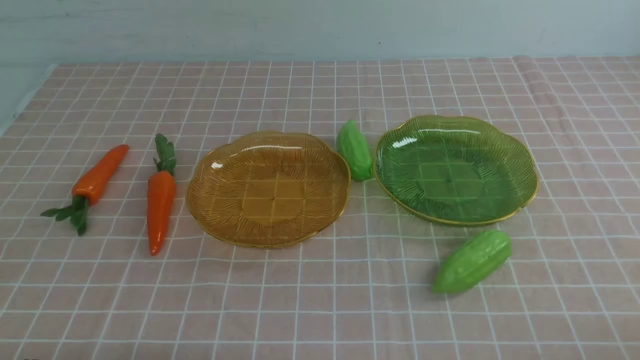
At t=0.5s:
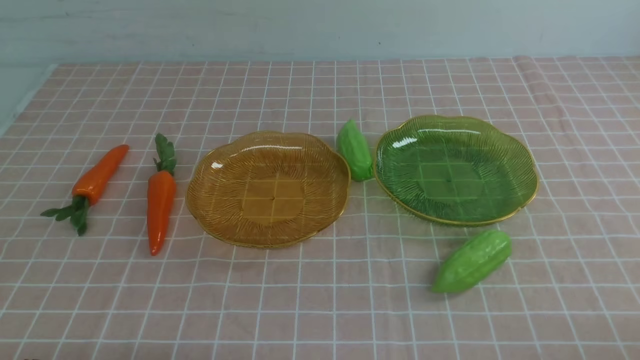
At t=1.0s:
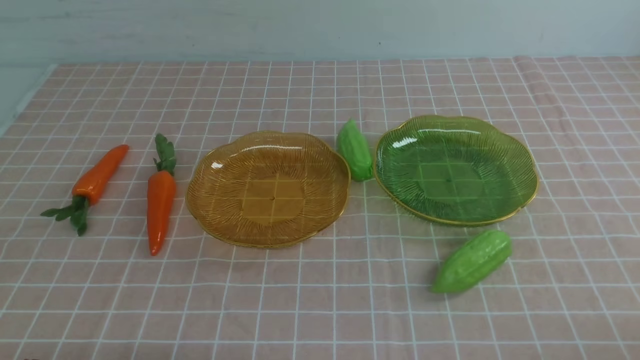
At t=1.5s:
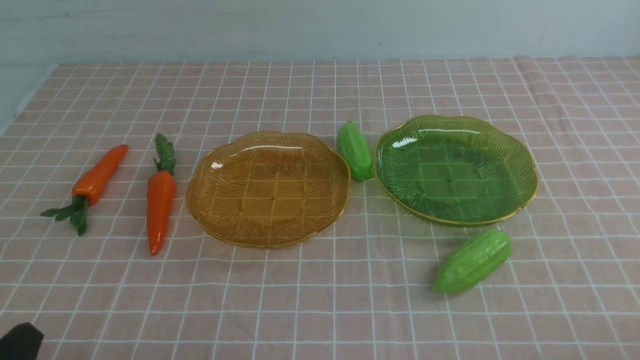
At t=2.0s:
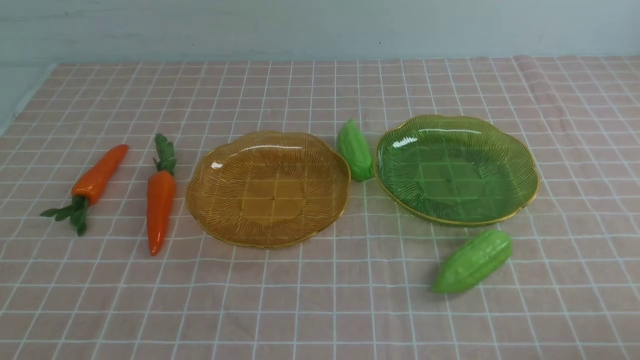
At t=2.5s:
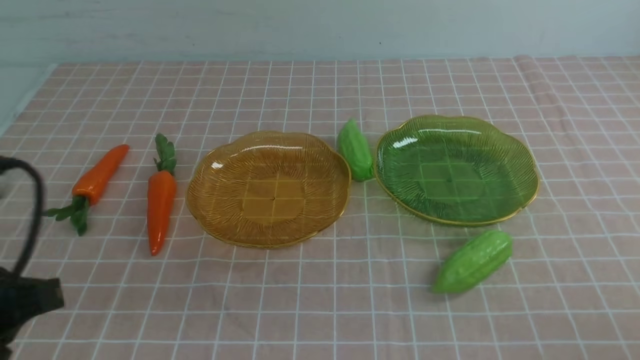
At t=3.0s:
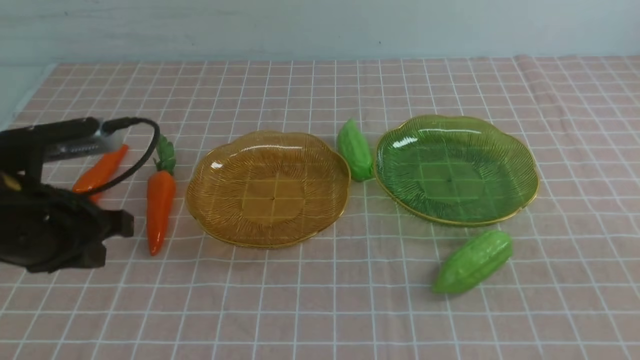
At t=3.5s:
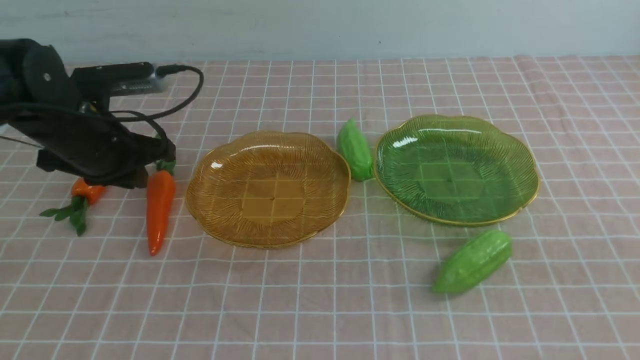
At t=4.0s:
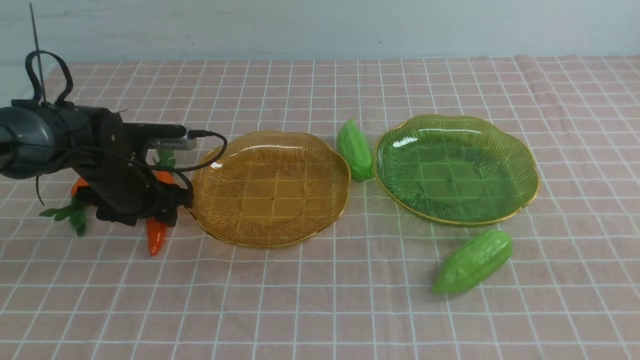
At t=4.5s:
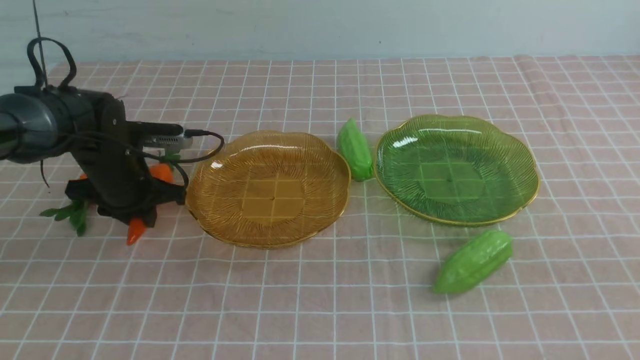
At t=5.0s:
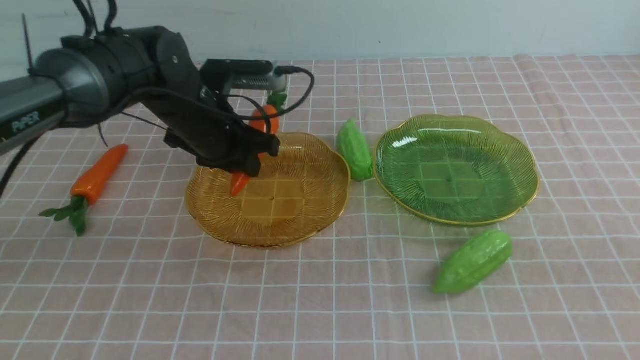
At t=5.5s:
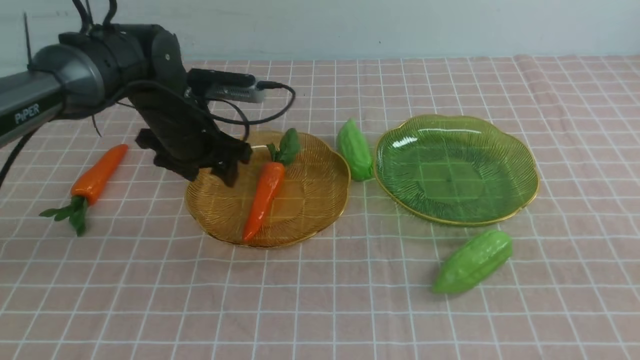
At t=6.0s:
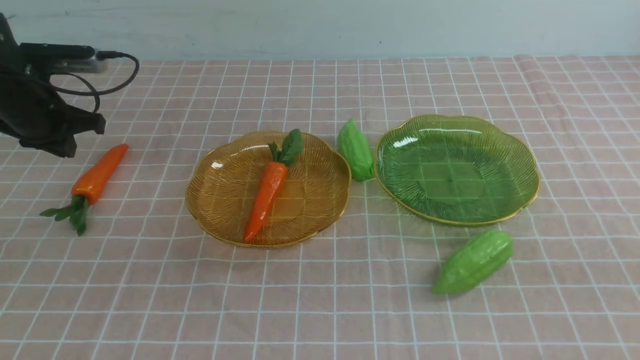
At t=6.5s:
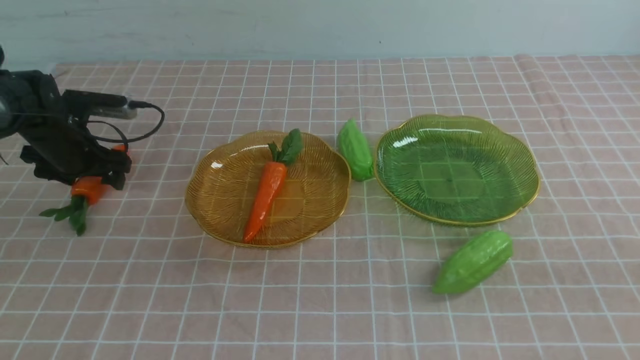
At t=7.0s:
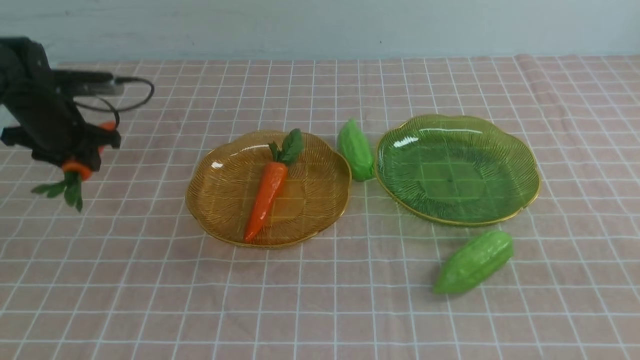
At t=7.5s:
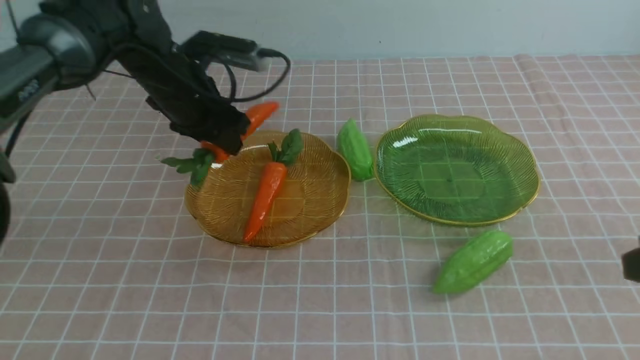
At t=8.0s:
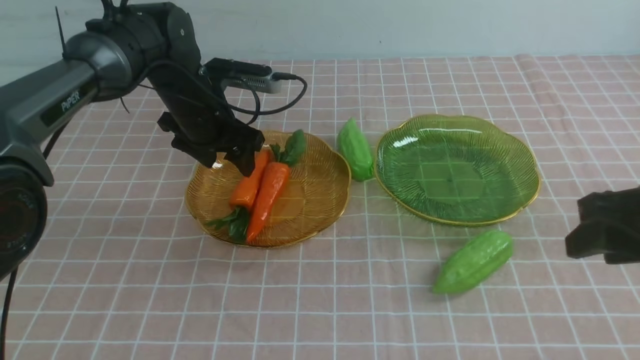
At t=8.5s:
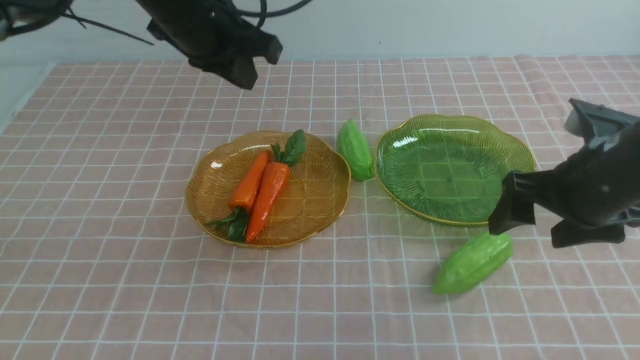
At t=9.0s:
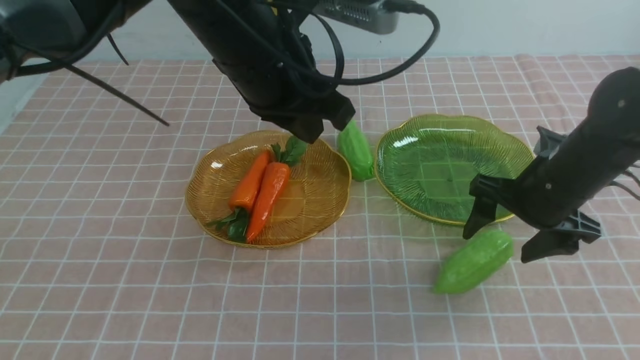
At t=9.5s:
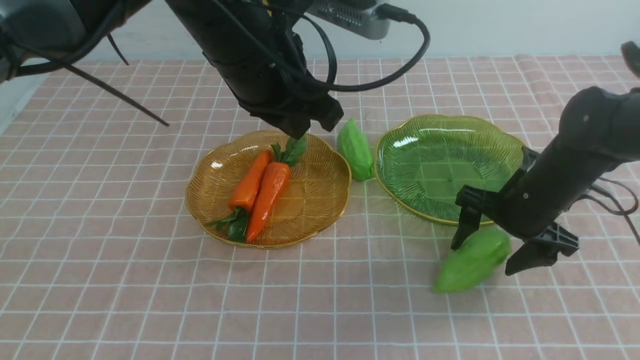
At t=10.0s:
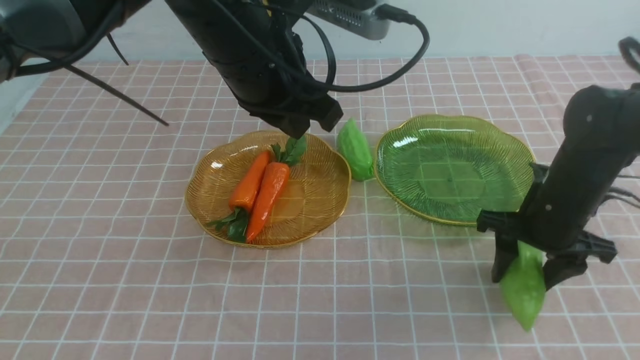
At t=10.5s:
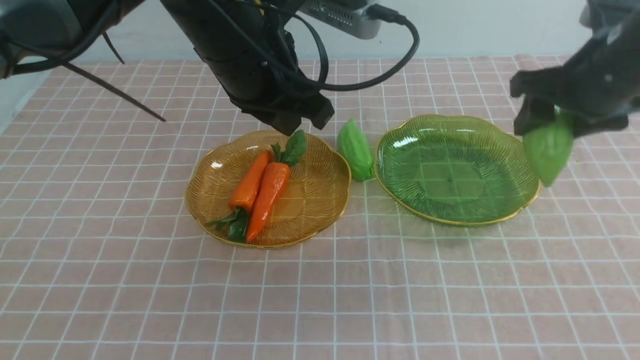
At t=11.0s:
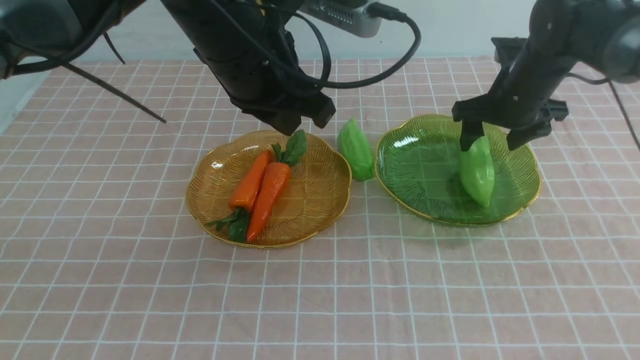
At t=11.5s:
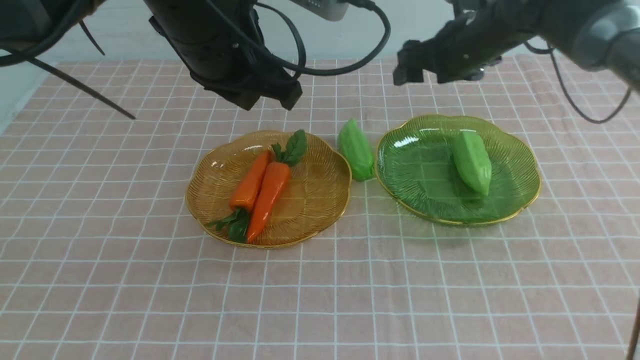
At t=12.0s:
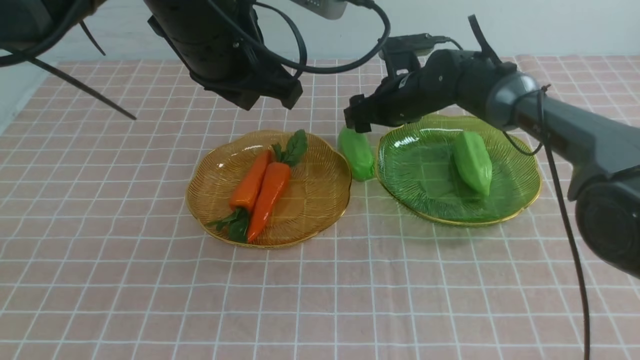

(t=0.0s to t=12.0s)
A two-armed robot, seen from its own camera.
Step, t=0.0s - t=5.0s: use the left arm to grab a carrot and put it into the left plate.
Step, t=5.5s - t=7.5s: use the left arm to grab a carrot and put it into the left plate.
Step, t=8.0s - t=11.0s: use the right arm to grab a chayote and put it into the right plate.
t=2.0s - t=4.0s: The right gripper is displaced upward and forward by roughly 15 cm. Meanwhile the left gripper shifts approximately 35 cm forward, and opens.
t=4.0s - t=6.0s: The left gripper moves to the left, upward and forward, approximately 15 cm, and closes, then opens again.
t=6.0s - t=8.0s: The right gripper moves forward and downward, about 10 cm, and opens. The left gripper shifts some 20 cm to the right, and opens its fingers.
t=8.0s - t=10.0s: The left gripper shifts about 20 cm upward, backward and to the right, and closes; the right gripper moves forward and downward, some 15 cm, and opens, then closes again.
t=10.0s - t=12.0s: The right gripper goes about 20 cm forward and to the left.

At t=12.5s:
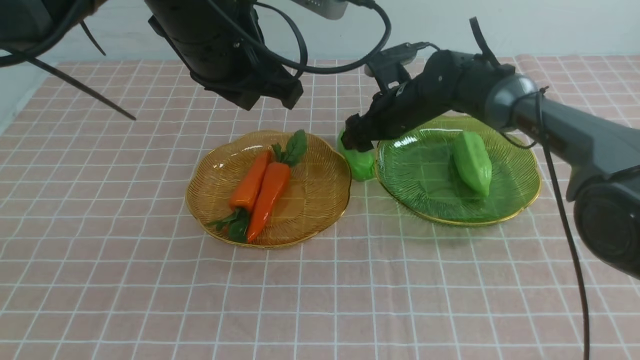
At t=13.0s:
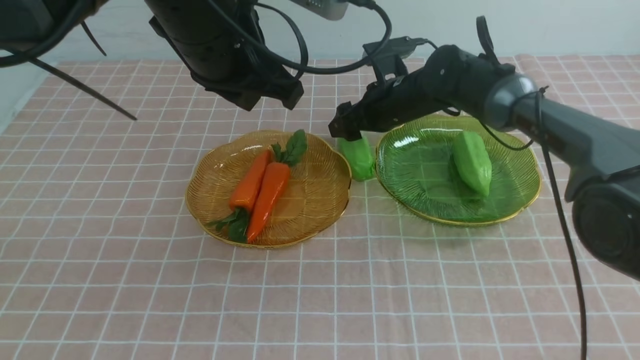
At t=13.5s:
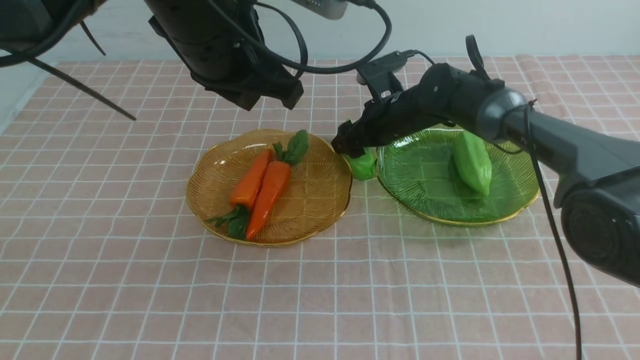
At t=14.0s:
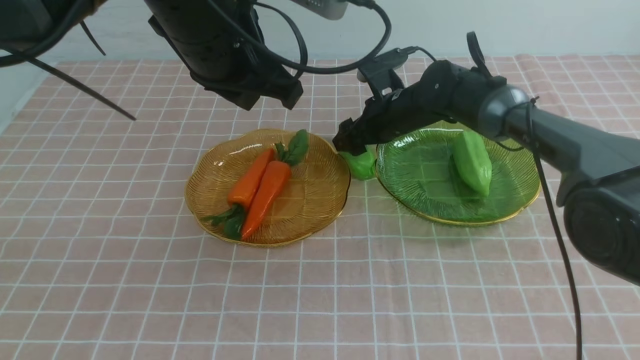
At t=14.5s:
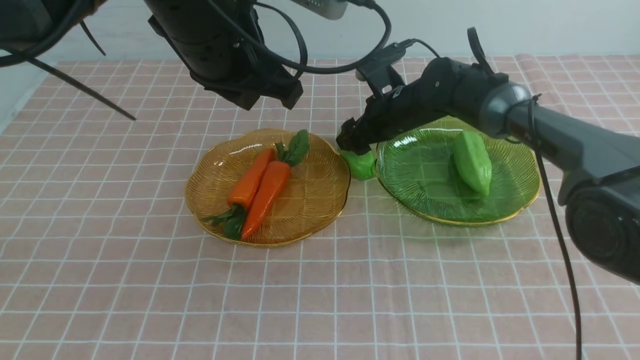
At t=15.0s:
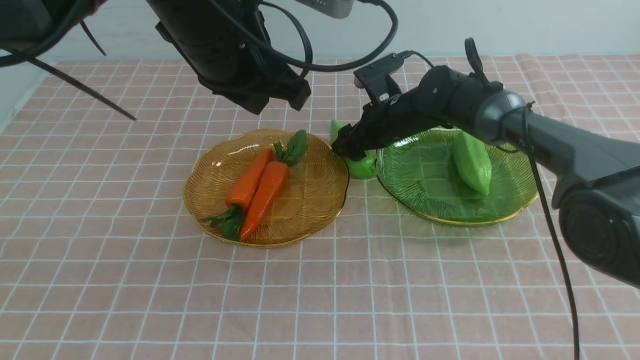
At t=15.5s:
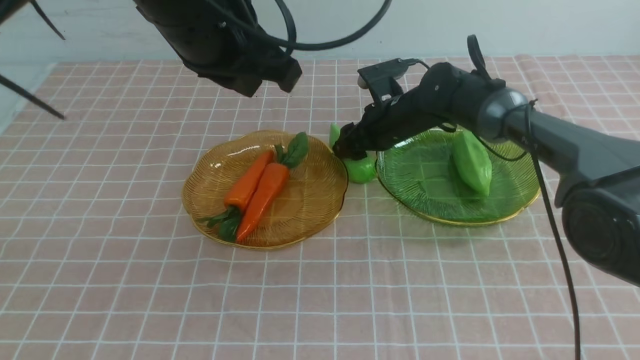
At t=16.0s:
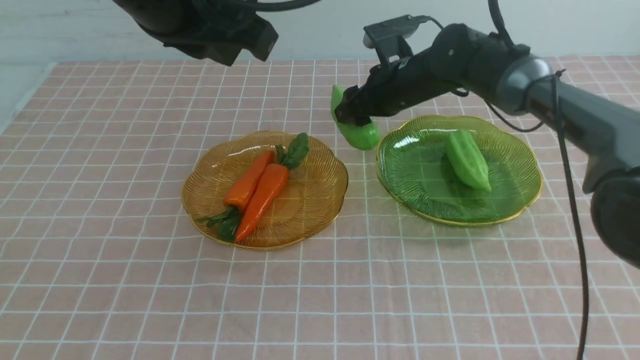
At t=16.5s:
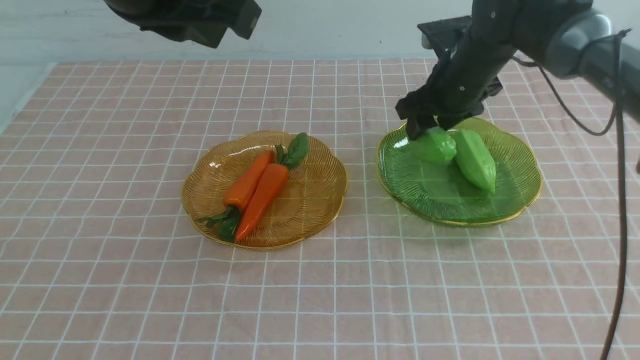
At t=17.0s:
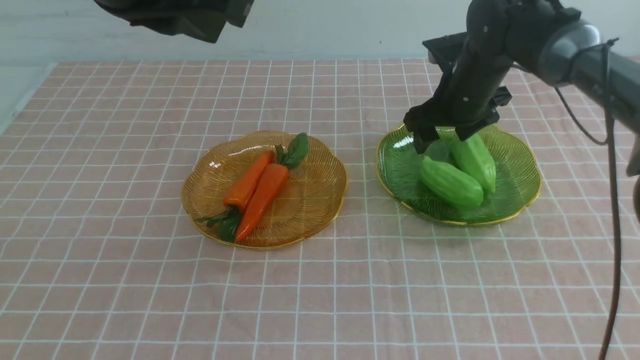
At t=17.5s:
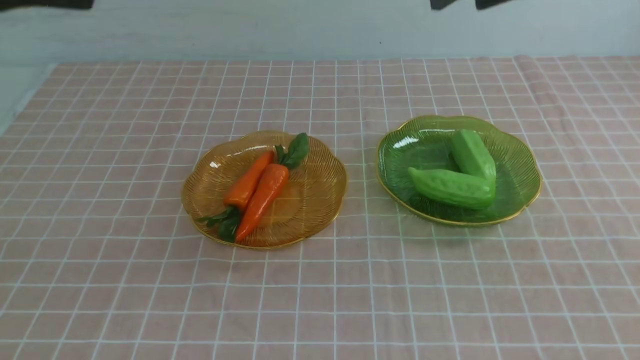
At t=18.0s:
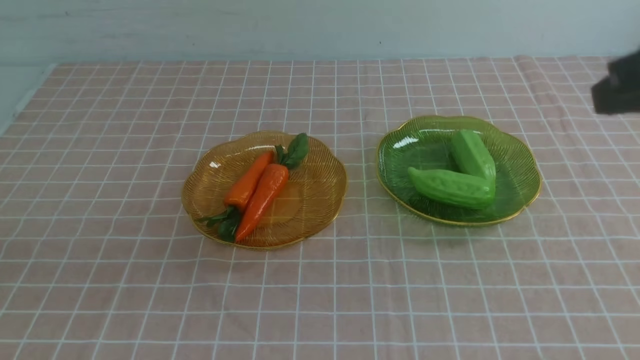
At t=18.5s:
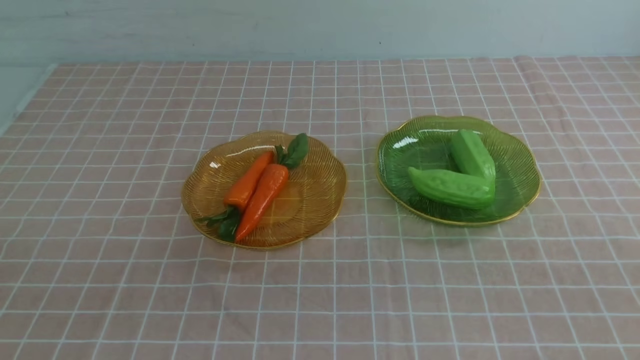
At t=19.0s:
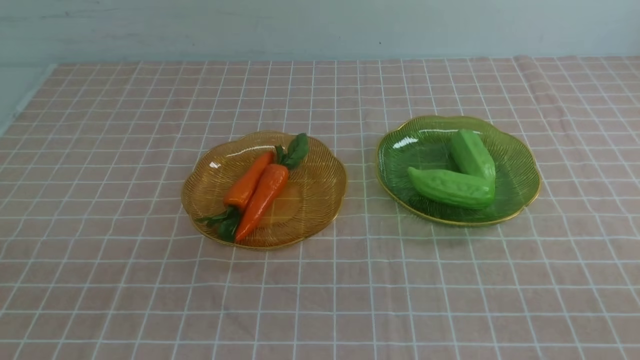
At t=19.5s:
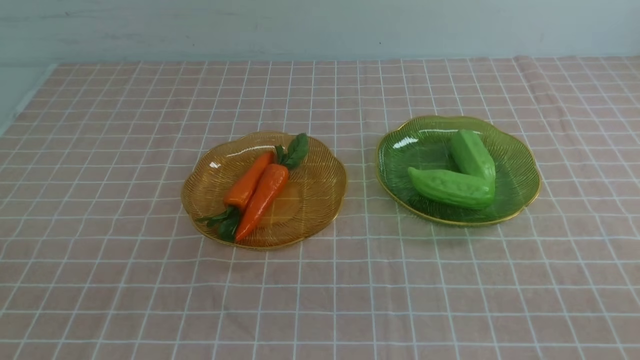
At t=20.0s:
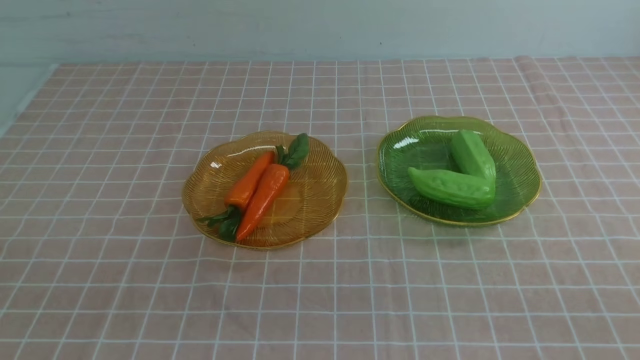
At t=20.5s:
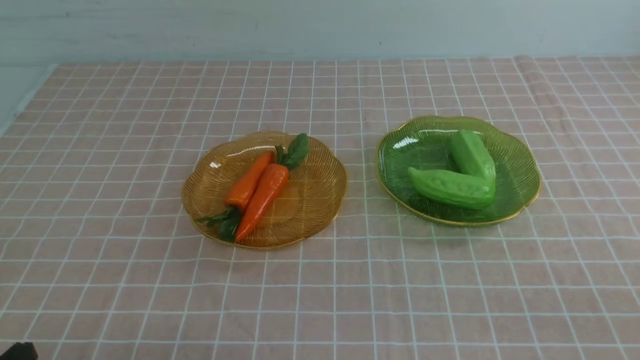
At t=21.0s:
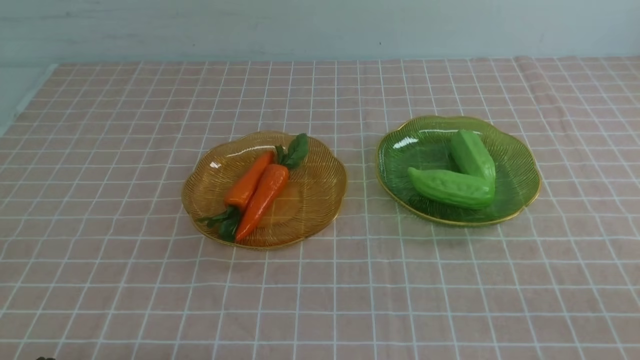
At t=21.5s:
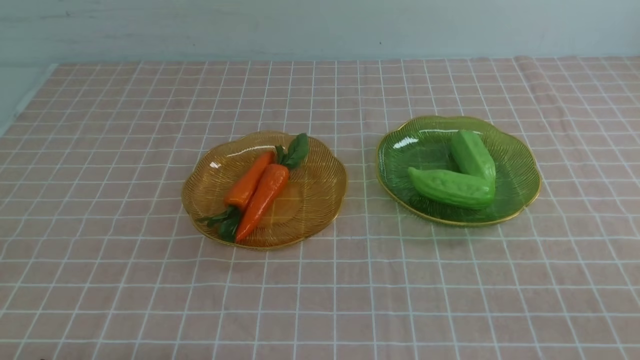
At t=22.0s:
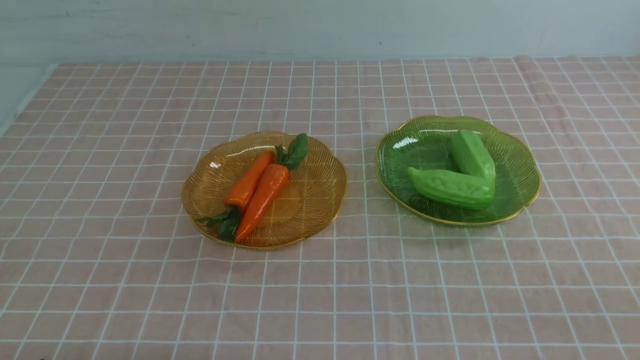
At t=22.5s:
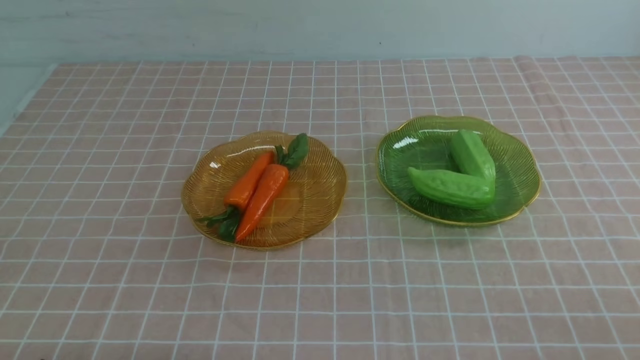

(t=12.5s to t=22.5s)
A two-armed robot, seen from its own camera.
Step, t=12.5s - t=16.5s: use the right arm to grab a chayote and put it into the right plate.
t=12.5s - t=14.5s: The grippers make only small movements.
t=14.5s - t=16.5s: The right gripper moves upward and to the right, some 10 cm. Meanwhile the left gripper shifts approximately 10 cm upward and backward.
t=16.5s - t=18.5s: The right gripper moves backward, approximately 40 cm, and closes up, while the left gripper is displaced backward, to the left and downward by some 30 cm.
